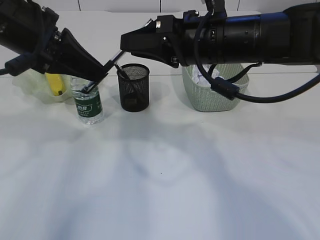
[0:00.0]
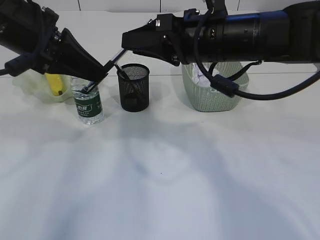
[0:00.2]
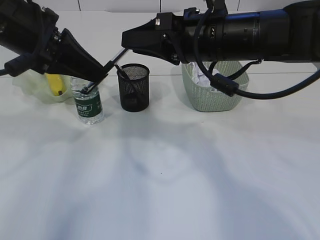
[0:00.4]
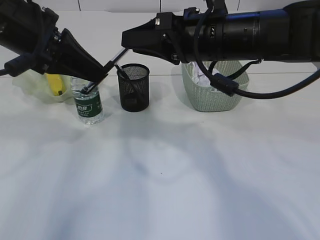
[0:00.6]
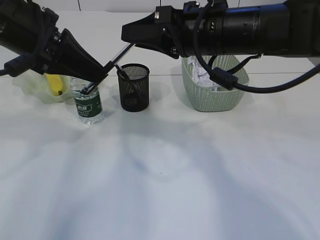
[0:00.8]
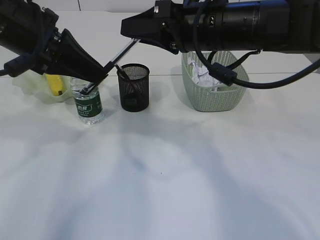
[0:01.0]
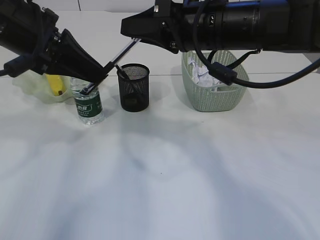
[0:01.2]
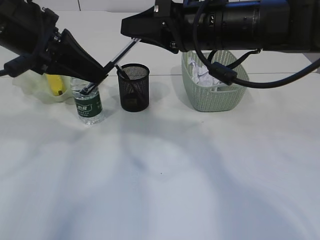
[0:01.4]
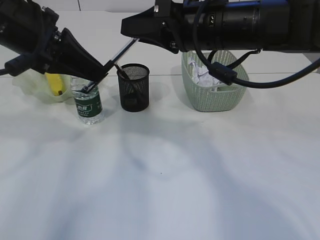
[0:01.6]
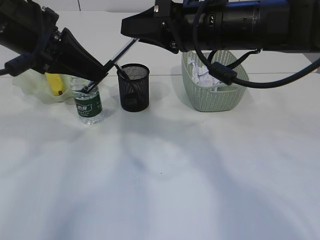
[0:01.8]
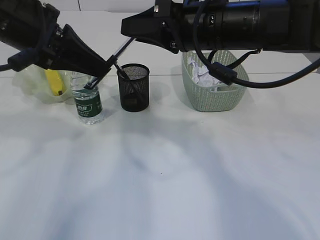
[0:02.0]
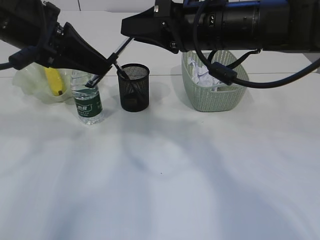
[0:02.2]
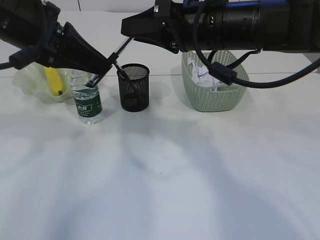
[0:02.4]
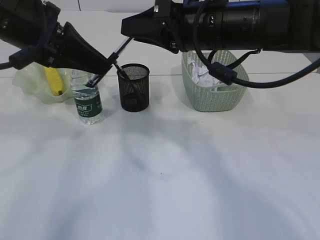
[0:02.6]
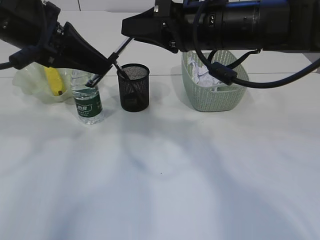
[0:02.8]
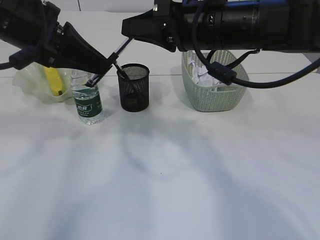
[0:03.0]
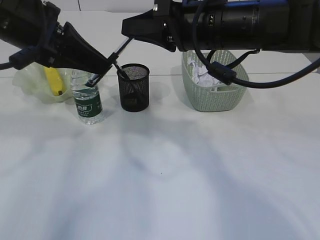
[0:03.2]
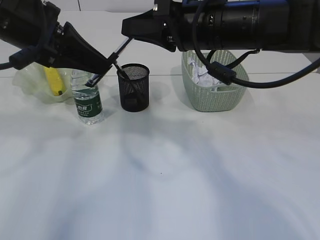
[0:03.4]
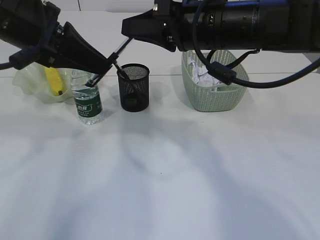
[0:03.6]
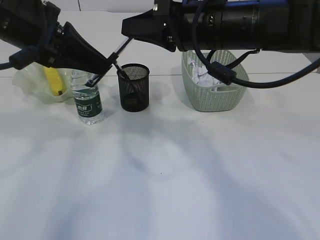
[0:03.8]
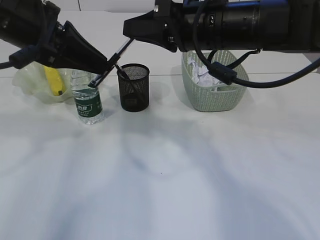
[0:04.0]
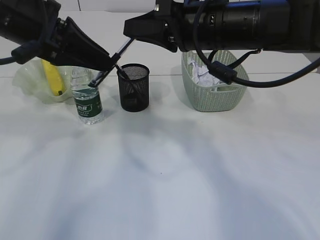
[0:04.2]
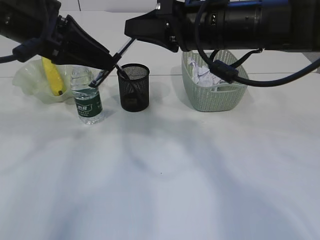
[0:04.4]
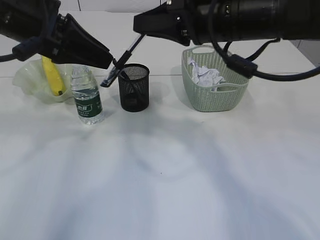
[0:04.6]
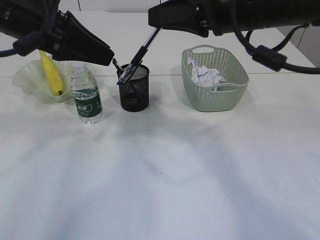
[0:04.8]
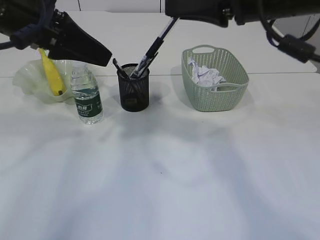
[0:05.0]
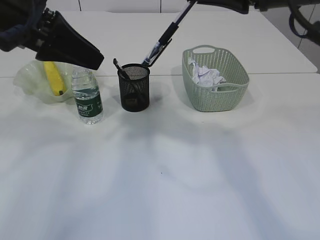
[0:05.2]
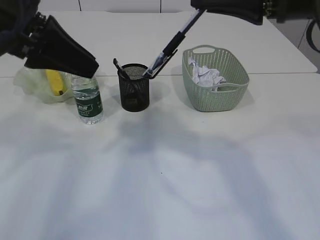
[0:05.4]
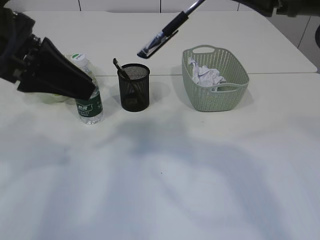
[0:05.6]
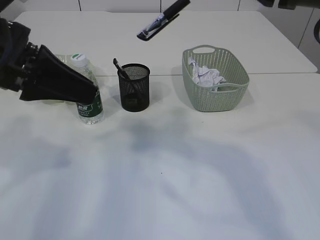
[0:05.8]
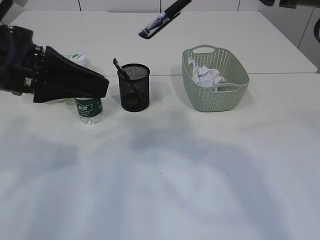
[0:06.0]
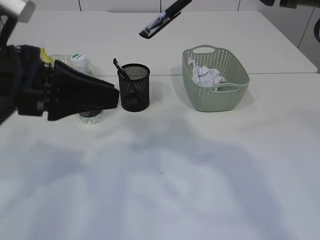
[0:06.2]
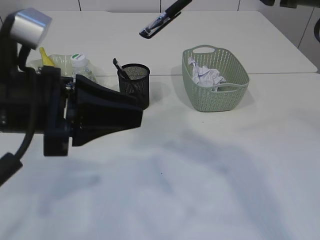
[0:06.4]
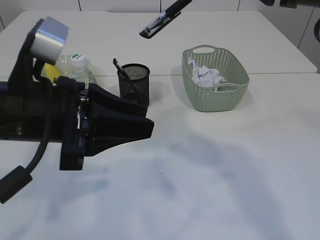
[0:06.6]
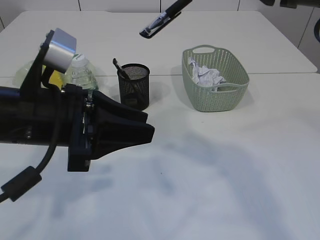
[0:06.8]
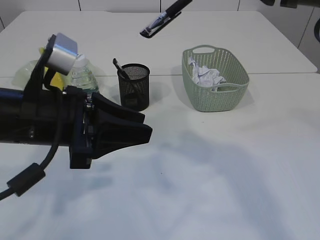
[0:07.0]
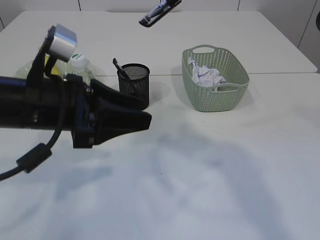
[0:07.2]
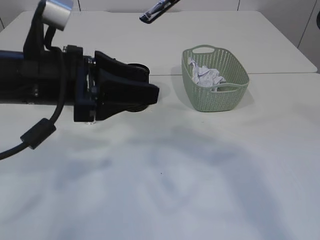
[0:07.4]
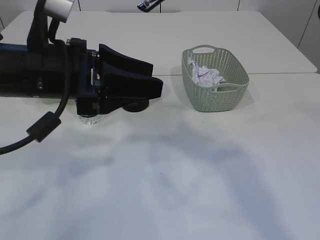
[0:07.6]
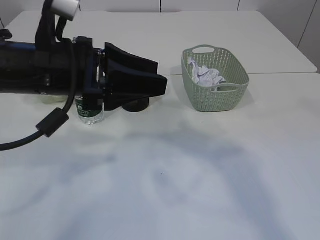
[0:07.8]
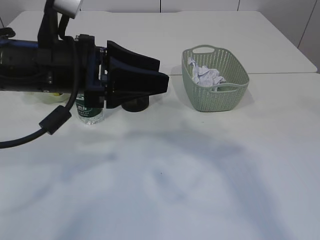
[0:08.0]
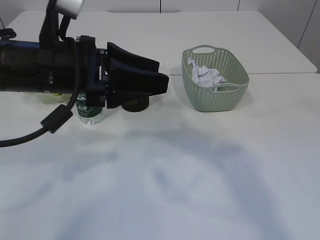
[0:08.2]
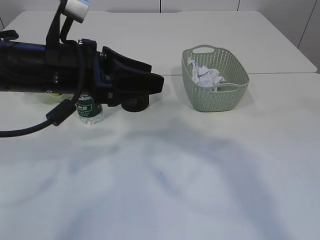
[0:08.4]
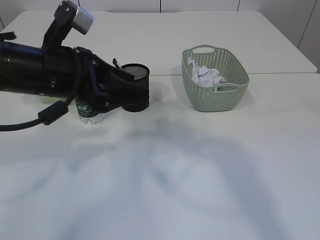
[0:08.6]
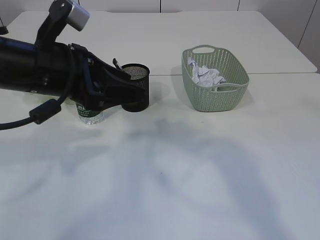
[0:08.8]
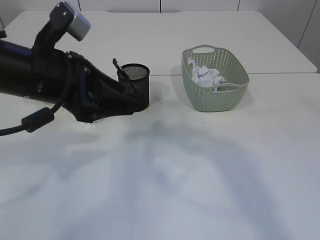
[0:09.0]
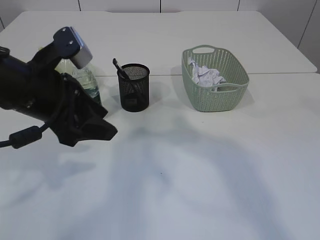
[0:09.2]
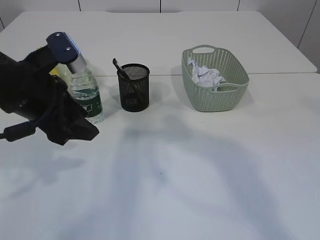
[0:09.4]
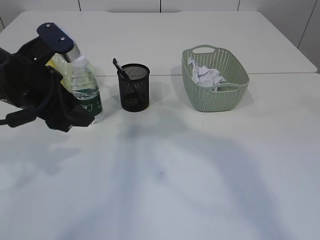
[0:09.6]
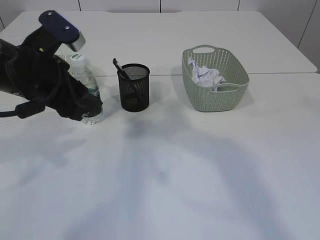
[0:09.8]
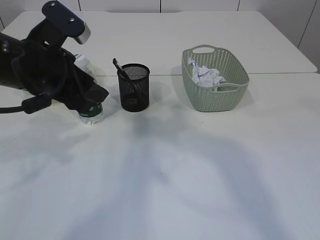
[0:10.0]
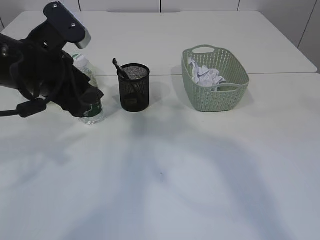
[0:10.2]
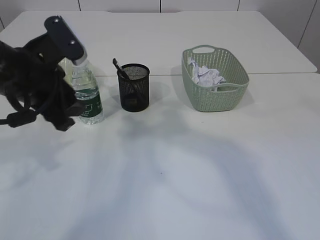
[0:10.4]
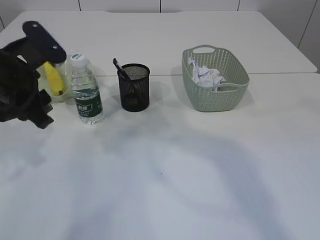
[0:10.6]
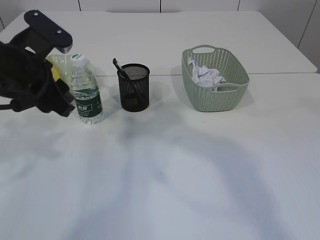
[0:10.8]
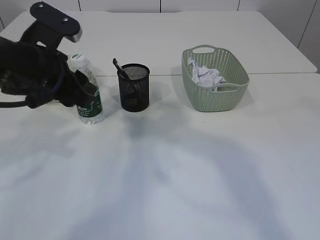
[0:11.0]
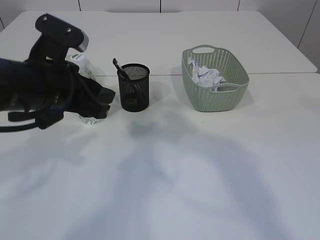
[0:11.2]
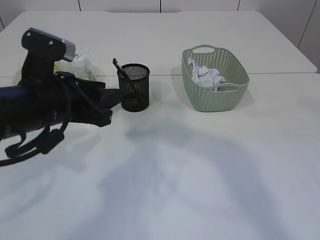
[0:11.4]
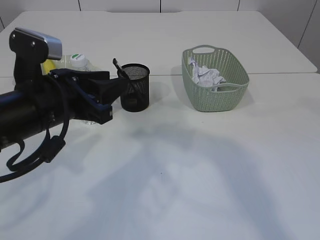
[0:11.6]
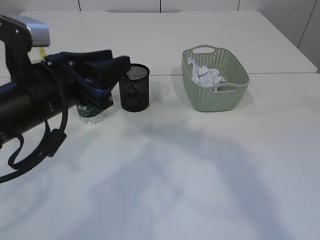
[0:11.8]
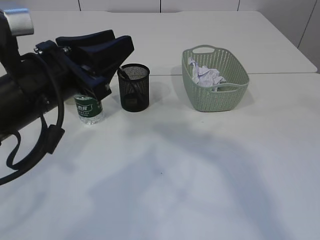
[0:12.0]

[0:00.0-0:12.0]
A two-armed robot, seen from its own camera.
Step, 0:00.0 to 0:04.8: transfer the pen to the right arm.
0:00.0 to 0:01.6: The grippers make only small movements.
0:01.6 to 0:03.0: Both grippers stay about where they are.
0:03.0 to 0:04.4: The two grippers keep their place.
0:04.4 to 0:06.0: The left gripper heads backward, covering about 10 cm, while the right gripper goes approximately 15 cm backward, to the right and upward.
0:06.0 to 0:07.6: The left gripper travels to the right by some 5 cm.
0:10.4 to 0:12.0: The left gripper moves roughly 5 cm.

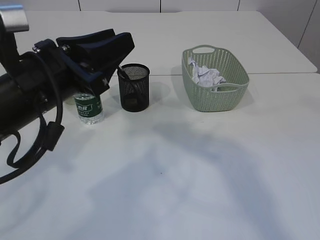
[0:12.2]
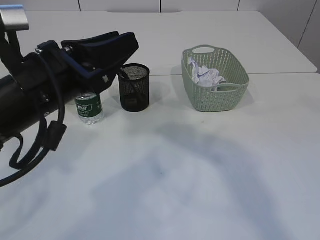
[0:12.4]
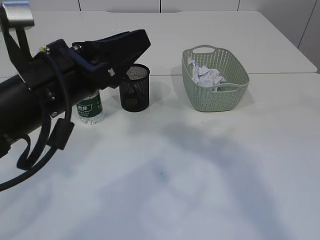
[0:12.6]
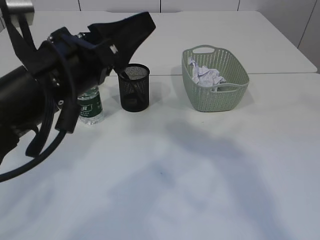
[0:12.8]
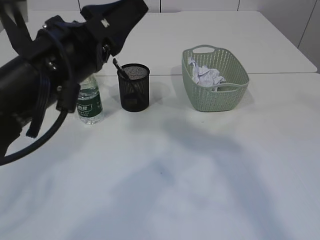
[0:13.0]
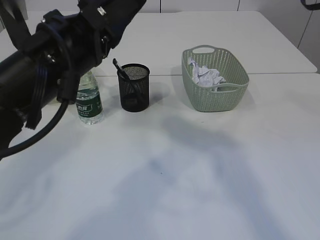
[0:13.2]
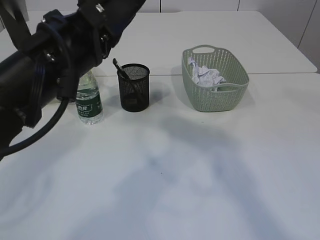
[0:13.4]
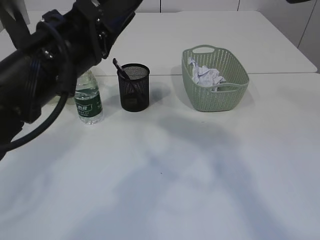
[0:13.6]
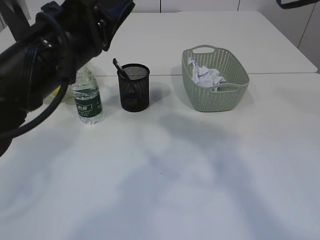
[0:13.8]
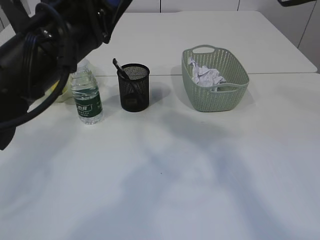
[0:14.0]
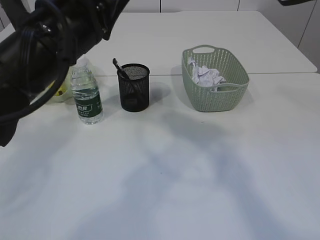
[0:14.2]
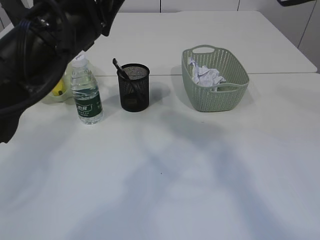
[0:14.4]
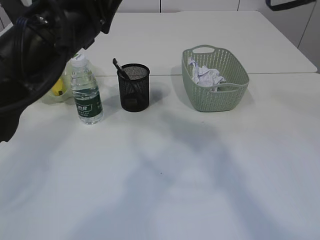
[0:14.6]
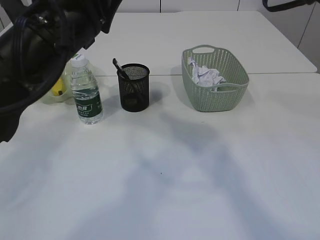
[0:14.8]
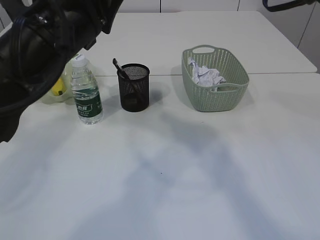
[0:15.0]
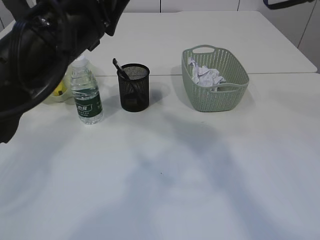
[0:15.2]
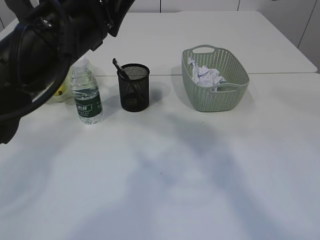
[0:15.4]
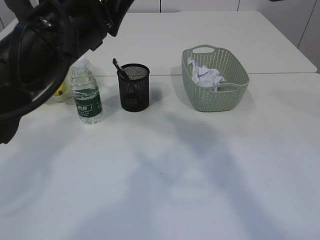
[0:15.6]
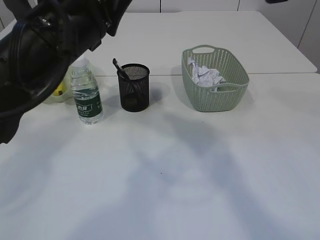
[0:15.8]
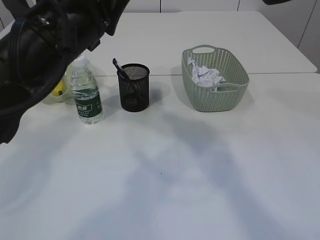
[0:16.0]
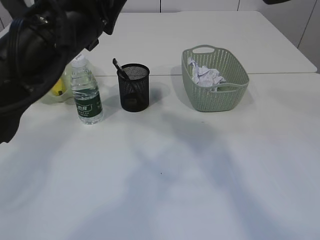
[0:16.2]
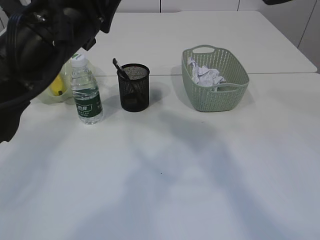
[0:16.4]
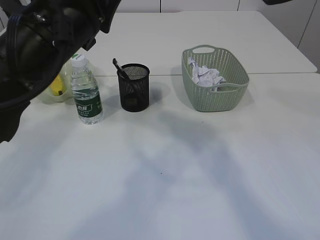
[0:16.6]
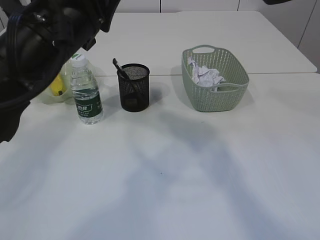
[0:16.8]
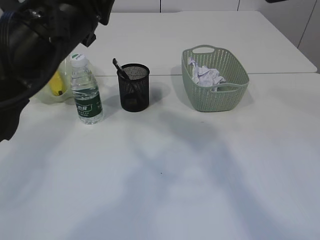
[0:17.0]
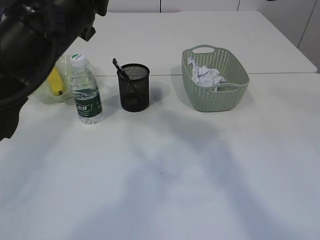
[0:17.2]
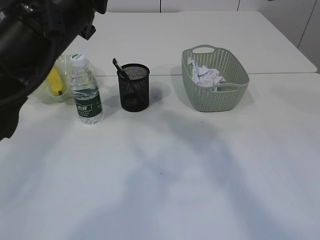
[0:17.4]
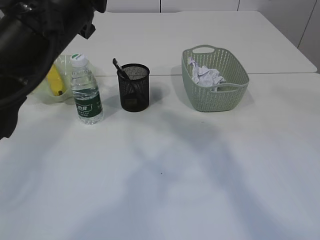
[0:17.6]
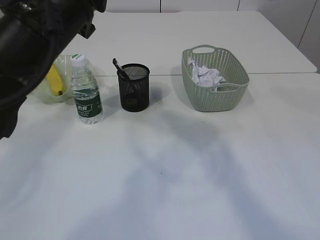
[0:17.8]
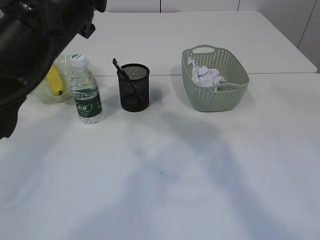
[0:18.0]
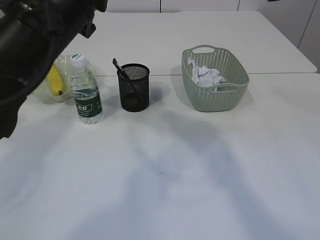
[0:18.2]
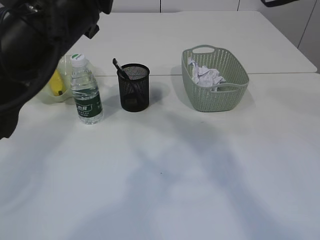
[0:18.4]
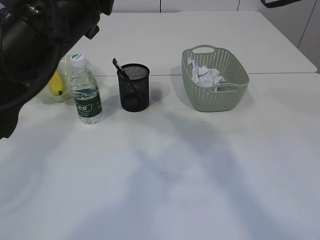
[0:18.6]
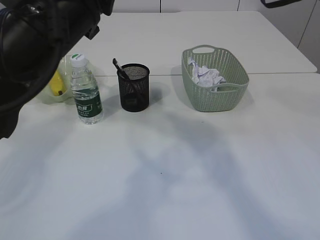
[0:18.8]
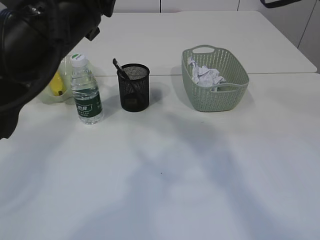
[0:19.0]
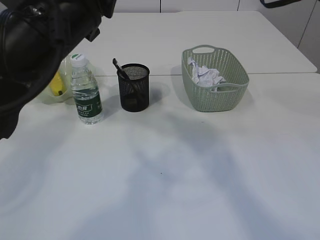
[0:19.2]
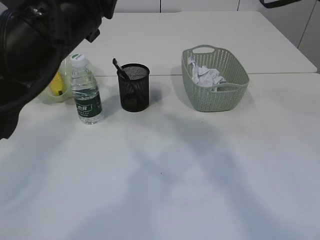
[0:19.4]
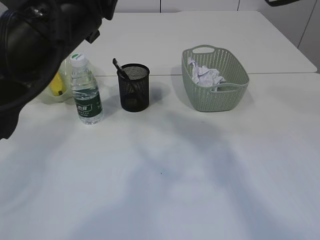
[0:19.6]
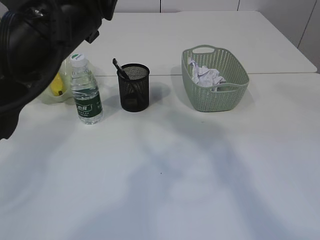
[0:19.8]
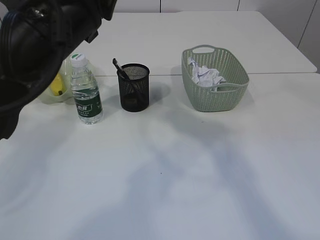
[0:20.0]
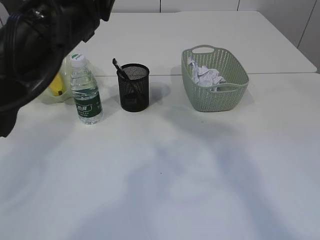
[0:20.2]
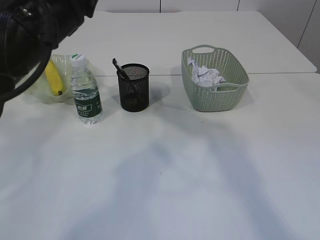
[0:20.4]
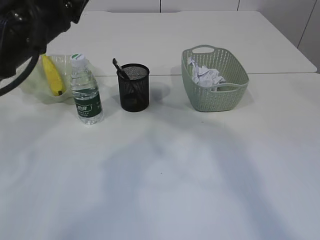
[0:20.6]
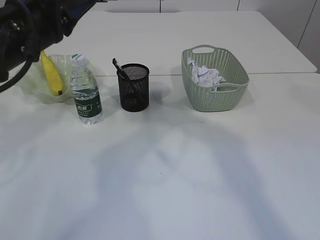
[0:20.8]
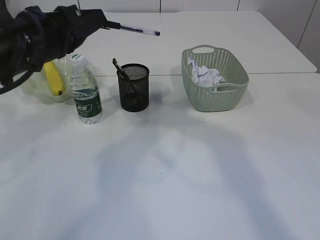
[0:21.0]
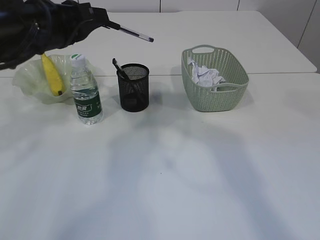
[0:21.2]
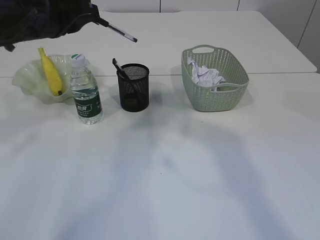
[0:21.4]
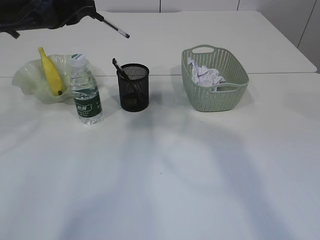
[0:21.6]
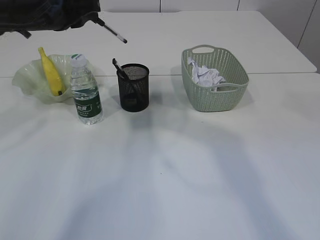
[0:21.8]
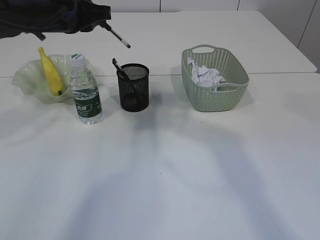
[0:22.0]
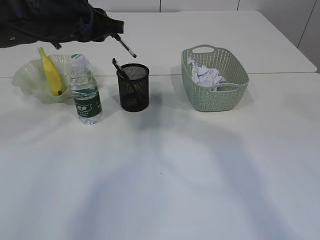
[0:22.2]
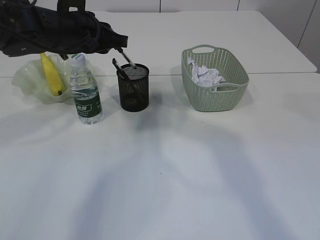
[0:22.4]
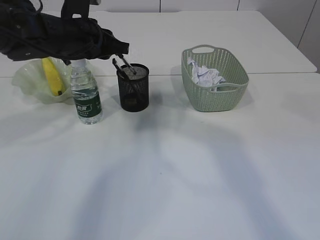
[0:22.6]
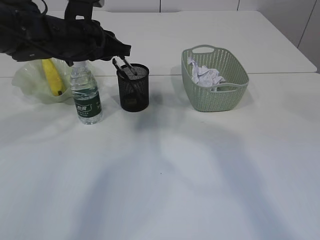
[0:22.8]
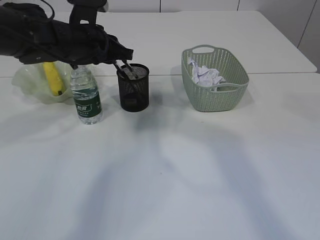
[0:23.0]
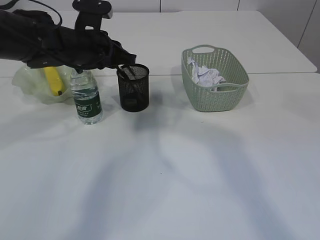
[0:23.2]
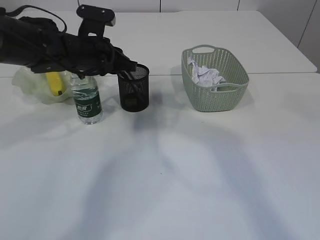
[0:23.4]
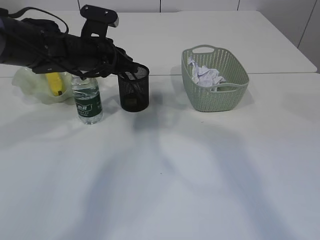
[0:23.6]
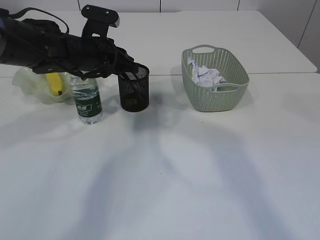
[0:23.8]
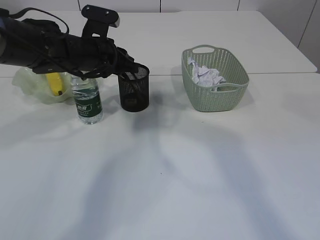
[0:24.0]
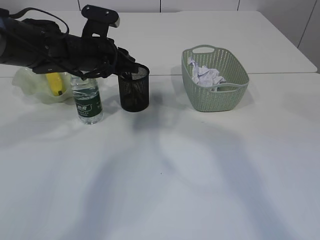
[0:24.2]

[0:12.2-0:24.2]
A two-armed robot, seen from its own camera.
Step, 0:12.2 to 0:20.8: transfer the pen to the left arm.
0:12.2 to 0:13.8: The right gripper changes place by approximately 5 cm.
0:13.8 to 0:15.2: The grippers move only a little.
0:15.2 to 0:16.6: Both grippers stay put.
0:16.6 to 0:18.2: The left gripper closes.
0:19.8 to 0:21.2: The left gripper travels forward and to the left by approximately 10 cm.
0:21.2 to 0:22.6: The left gripper shifts about 10 cm forward.
0:22.6 to 0:24.2: The left gripper shifts by about 5 cm.
